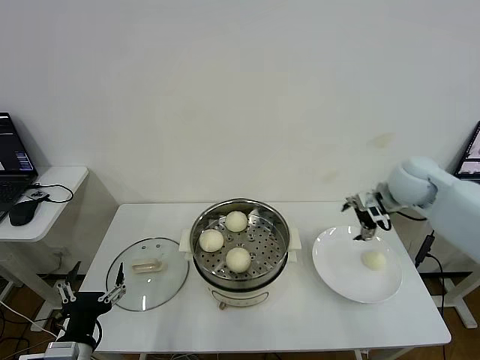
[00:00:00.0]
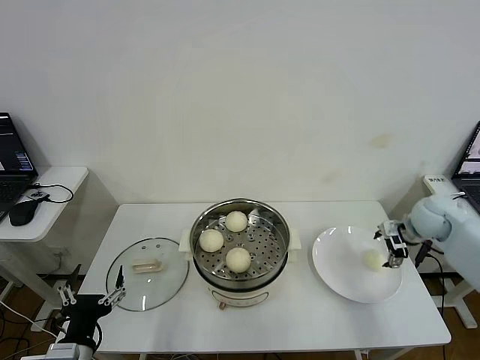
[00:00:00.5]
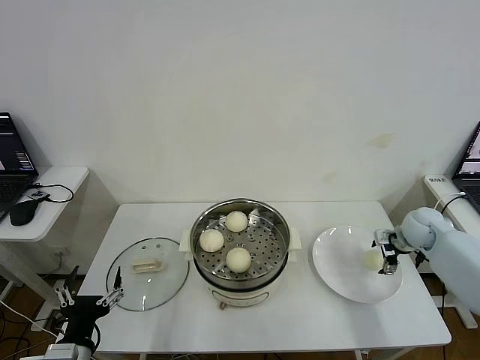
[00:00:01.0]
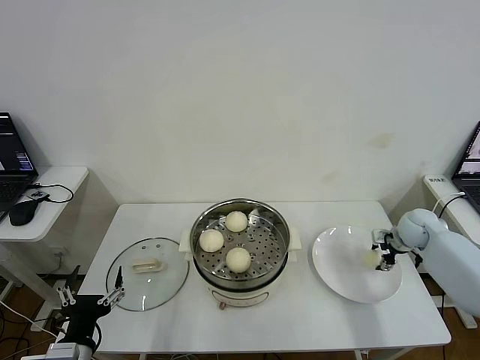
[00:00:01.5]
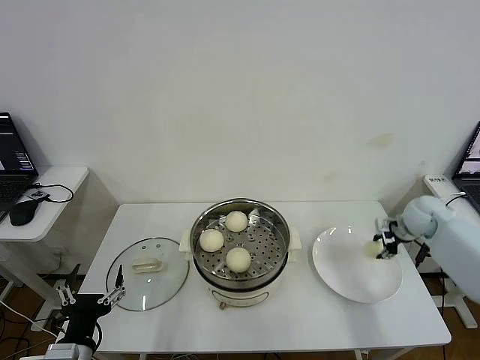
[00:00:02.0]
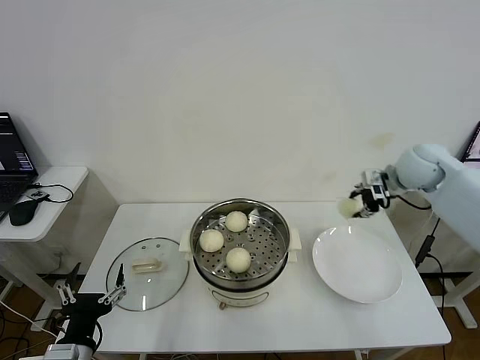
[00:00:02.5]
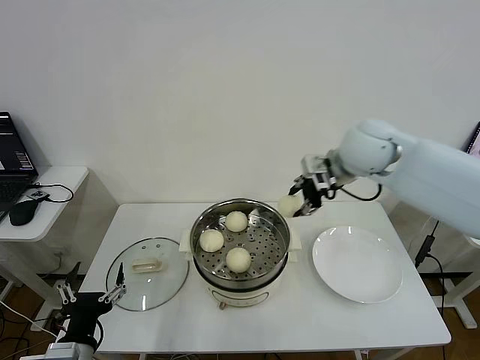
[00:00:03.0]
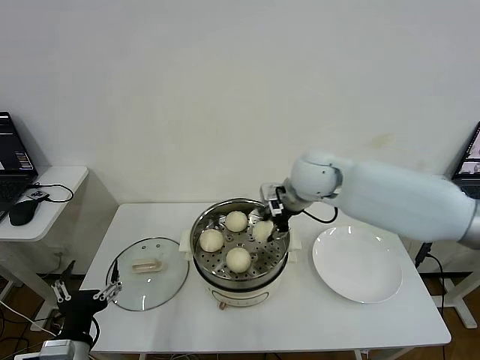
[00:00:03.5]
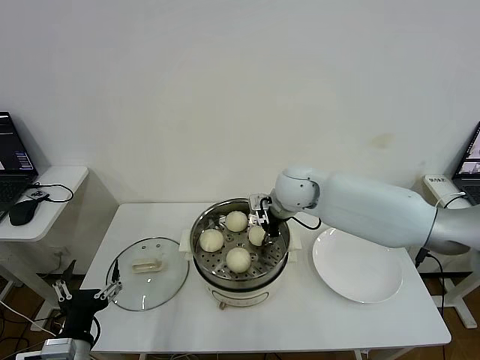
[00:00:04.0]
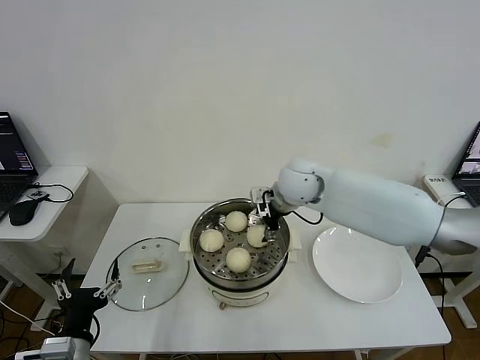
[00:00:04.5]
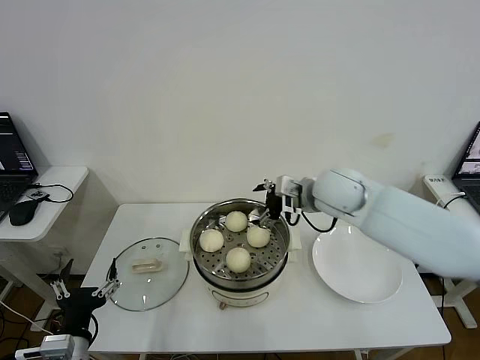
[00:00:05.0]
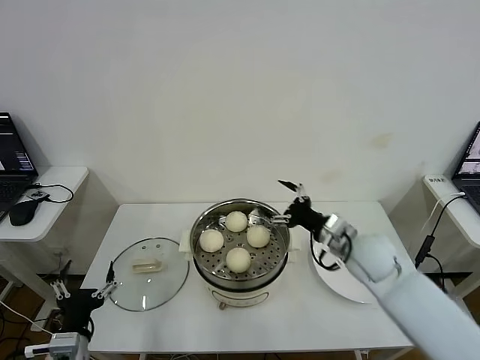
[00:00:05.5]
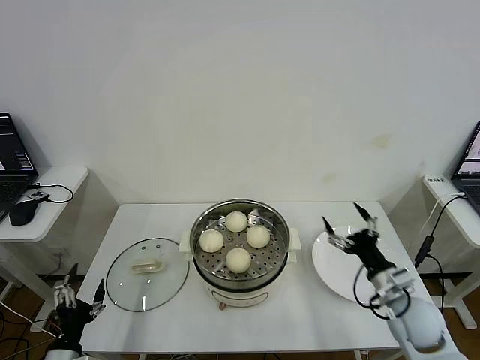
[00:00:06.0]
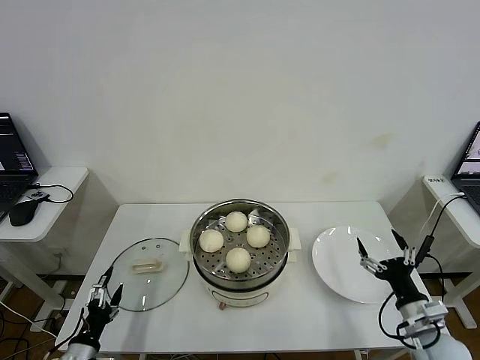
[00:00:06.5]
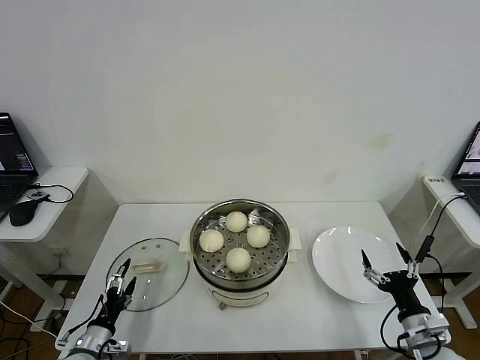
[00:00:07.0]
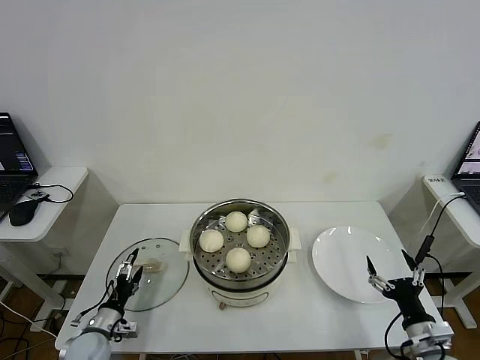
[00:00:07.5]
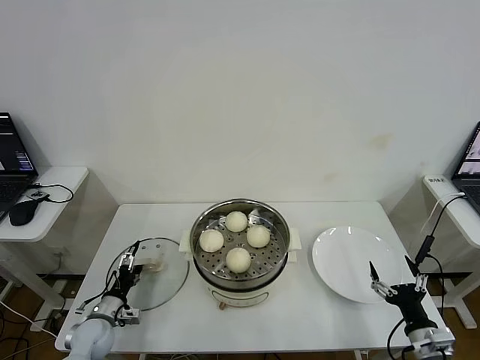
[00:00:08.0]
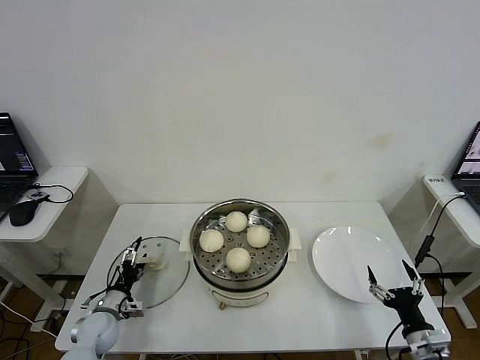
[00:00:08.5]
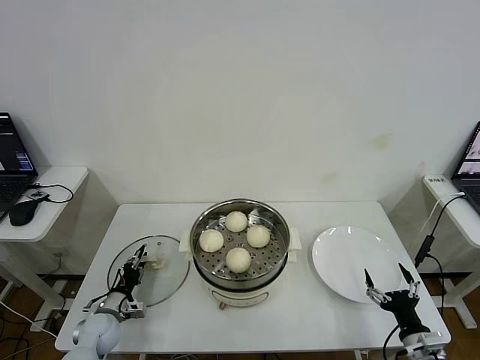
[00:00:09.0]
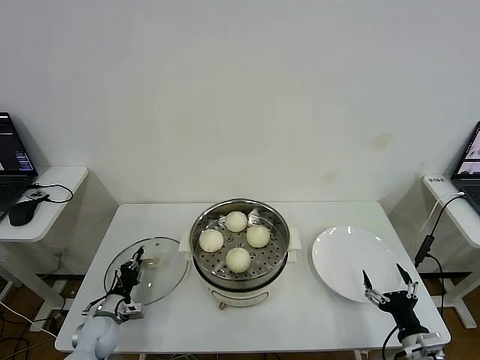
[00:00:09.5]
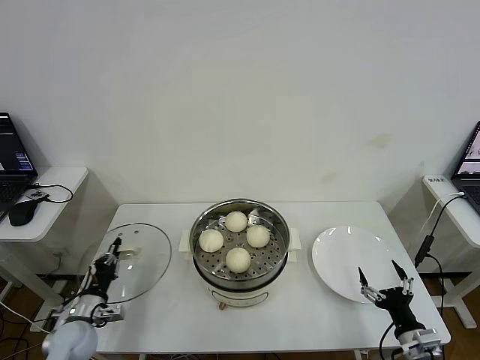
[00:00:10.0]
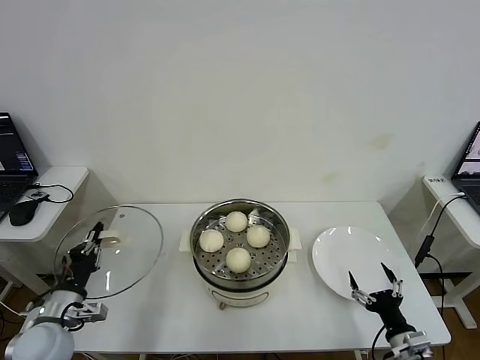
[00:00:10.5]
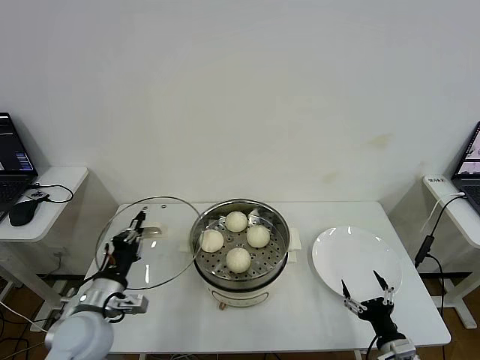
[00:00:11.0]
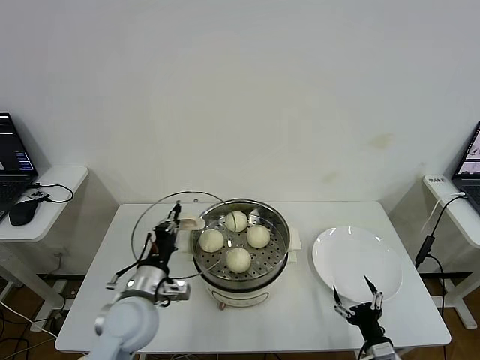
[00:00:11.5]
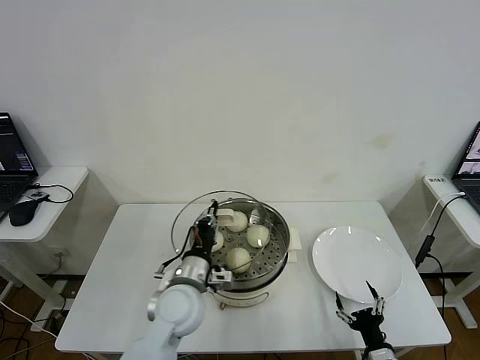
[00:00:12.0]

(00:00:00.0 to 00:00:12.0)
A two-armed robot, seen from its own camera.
Step, 00:00:00.0 - 00:00:01.5: Grasp the baozi in the plate with right gripper.
Step, 00:00:02.0 - 00:00:04.0: Place the baozi on the steamer with right gripper.
Step, 00:00:04.5 - 00:00:09.0: Grasp the pot lid with left gripper.
00:00:00.0 - 00:00:02.0: The right gripper moves downward and to the right, approximately 15 cm, and closes its fingers.
00:00:02.0 - 00:00:04.0: The right gripper shifts about 35 cm to the left.
00:00:04.0 - 00:00:06.0: The right gripper goes roughly 35 cm to the right, backward and downward, and opens its fingers; the left gripper shifts approximately 10 cm downward and to the left.
00:00:06.0 - 00:00:08.0: The left gripper moves forward and downward, roughly 20 cm, while the right gripper shifts approximately 10 cm backward and downward.
00:00:08.0 - 00:00:10.0: The left gripper closes.
00:00:10.0 - 00:00:12.0: The right gripper goes some 10 cm to the left and downward. Meanwhile the left gripper travels to the right and upward by some 30 cm.

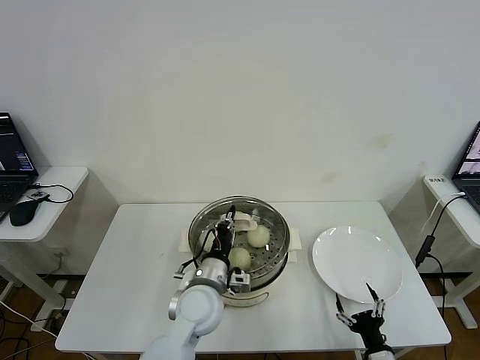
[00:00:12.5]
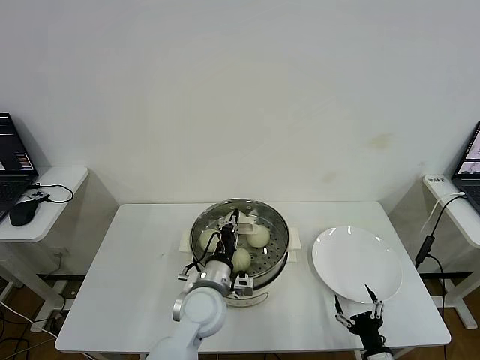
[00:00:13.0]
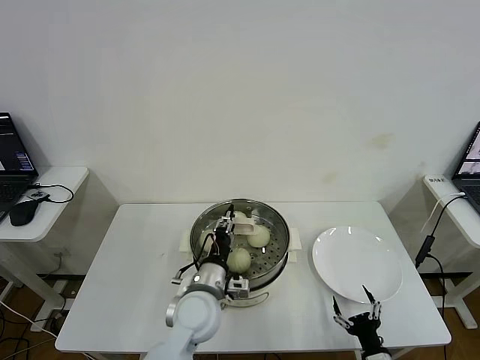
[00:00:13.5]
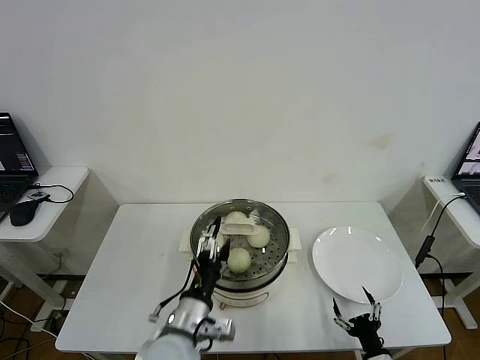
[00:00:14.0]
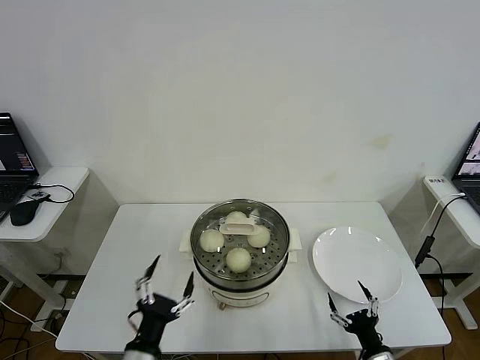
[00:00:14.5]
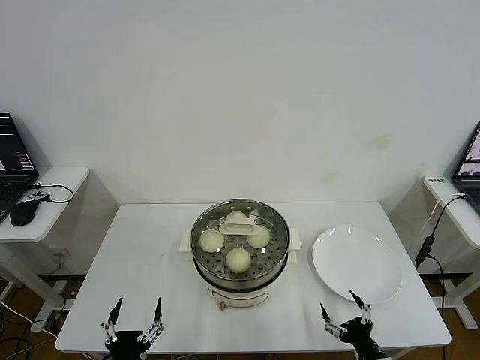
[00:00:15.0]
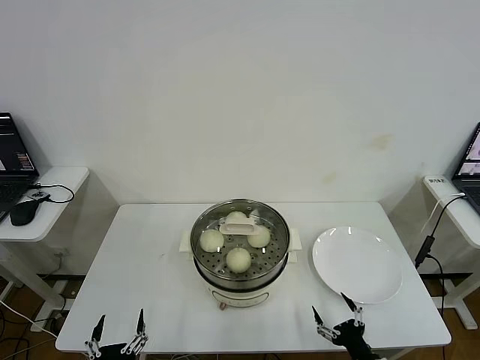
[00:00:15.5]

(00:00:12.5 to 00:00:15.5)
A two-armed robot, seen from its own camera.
00:00:12.5 - 00:00:14.0: The left gripper moves backward, about 10 cm, and opens.
00:00:14.0 - 00:00:15.5: The left gripper goes approximately 25 cm backward, to the left and downward.
